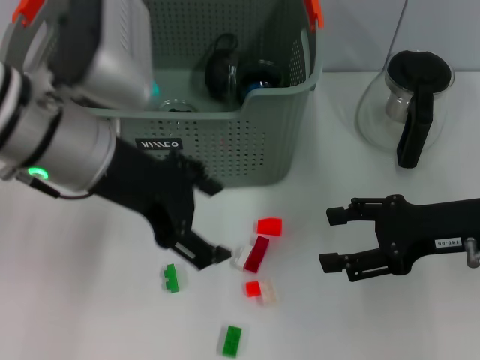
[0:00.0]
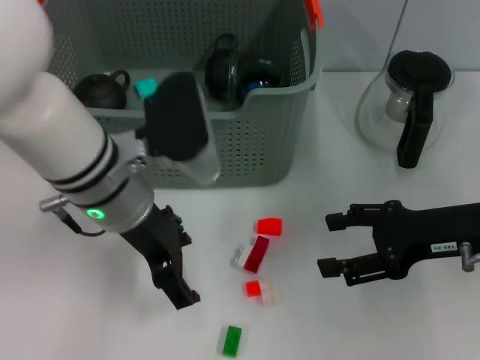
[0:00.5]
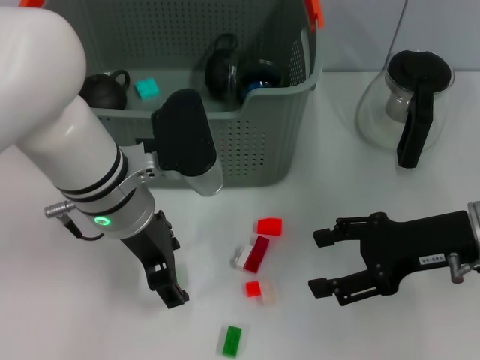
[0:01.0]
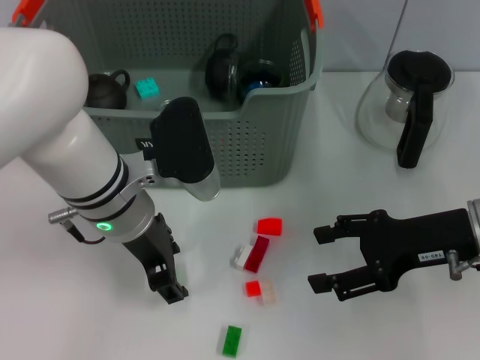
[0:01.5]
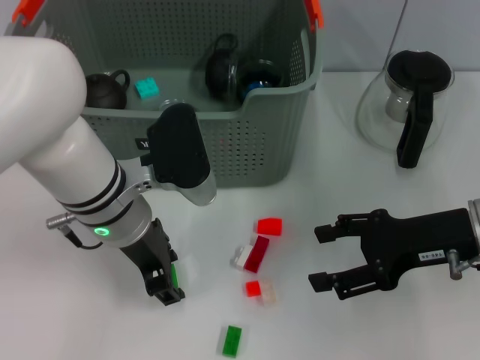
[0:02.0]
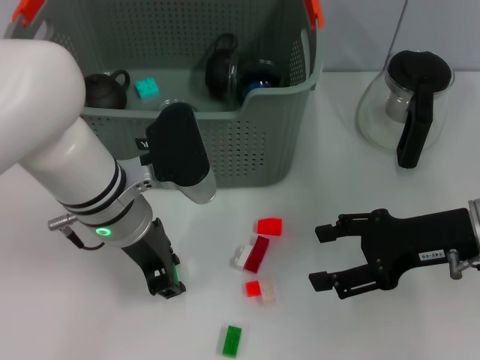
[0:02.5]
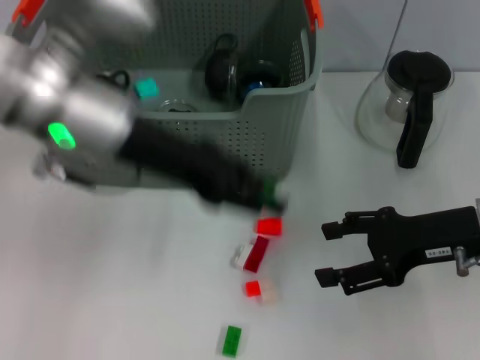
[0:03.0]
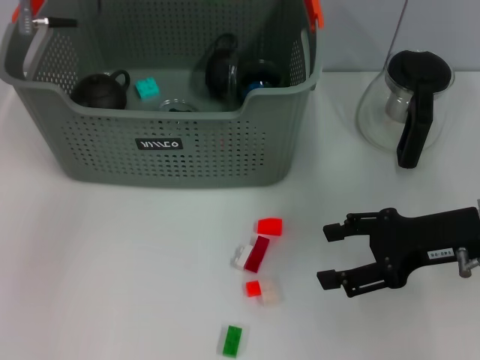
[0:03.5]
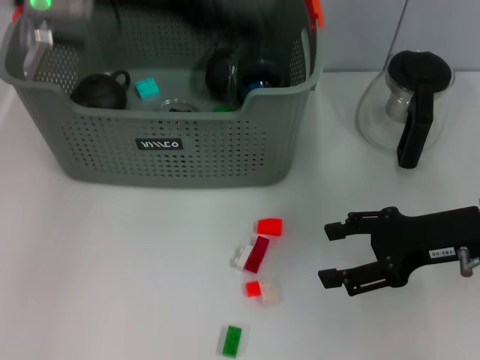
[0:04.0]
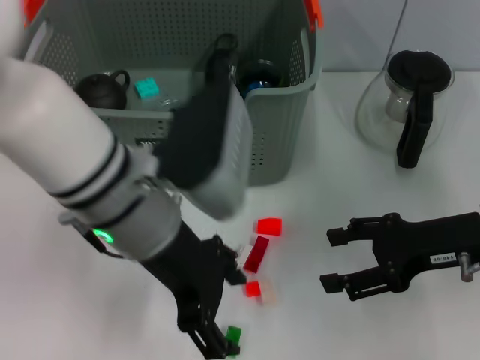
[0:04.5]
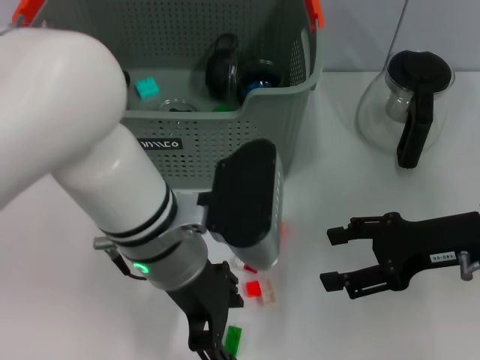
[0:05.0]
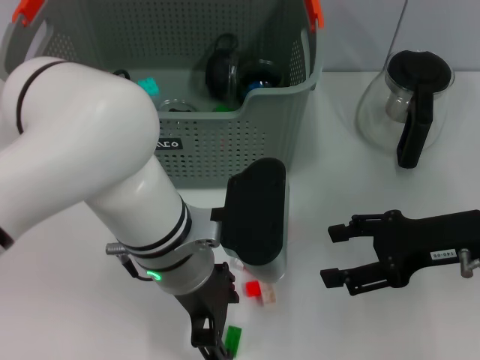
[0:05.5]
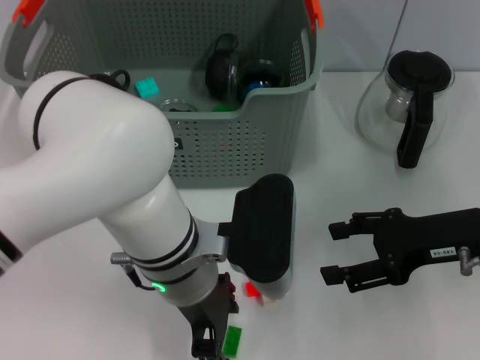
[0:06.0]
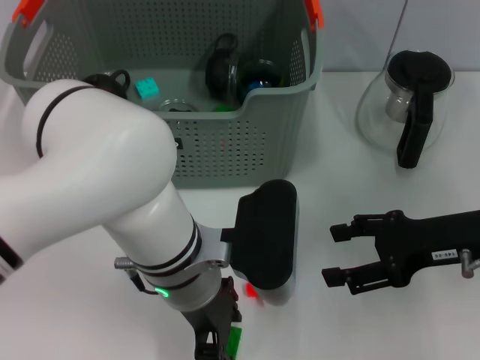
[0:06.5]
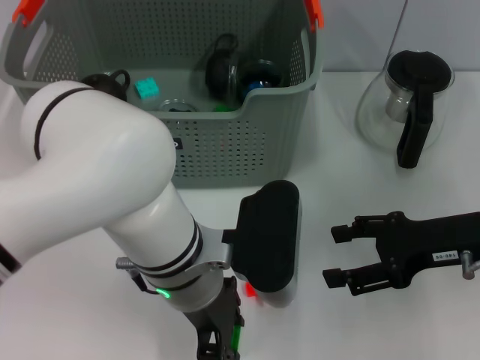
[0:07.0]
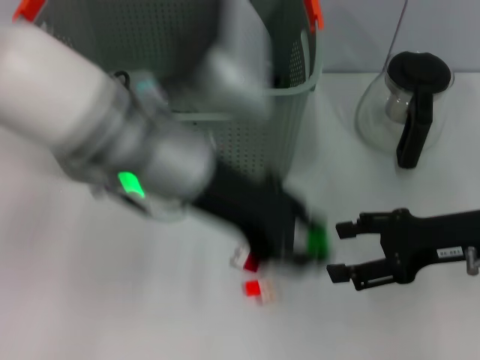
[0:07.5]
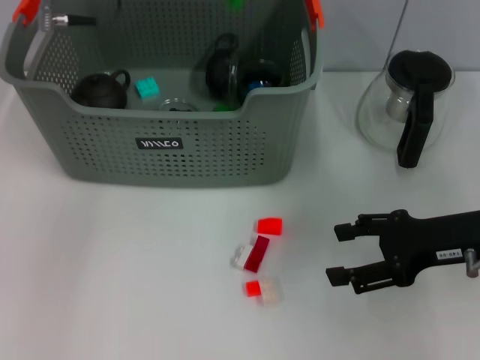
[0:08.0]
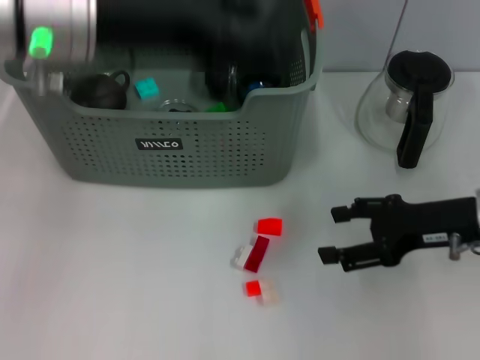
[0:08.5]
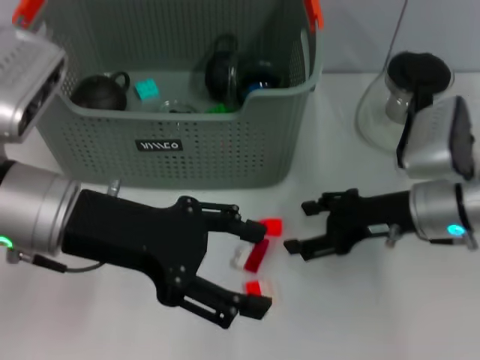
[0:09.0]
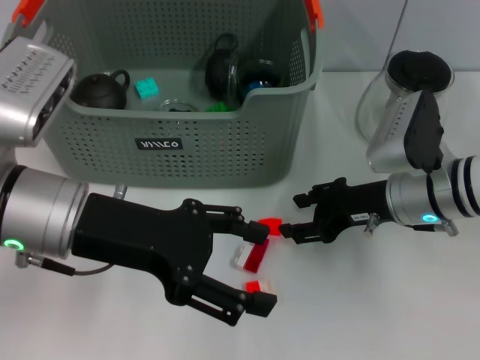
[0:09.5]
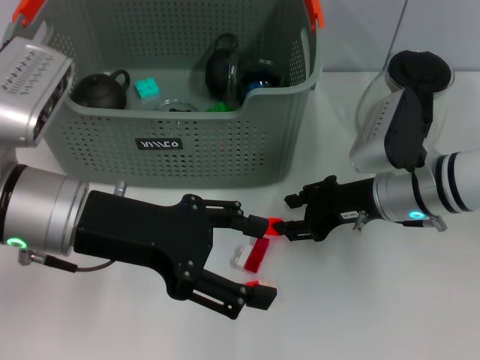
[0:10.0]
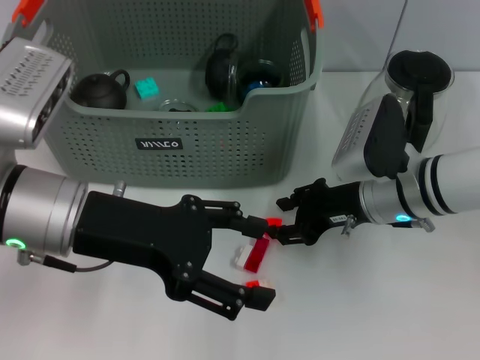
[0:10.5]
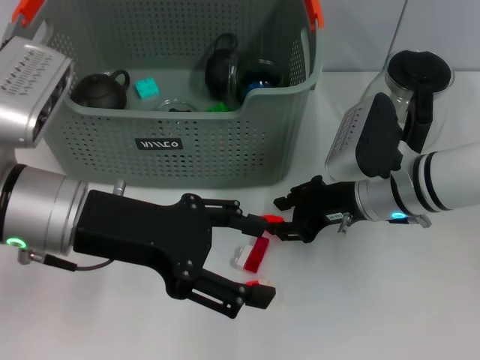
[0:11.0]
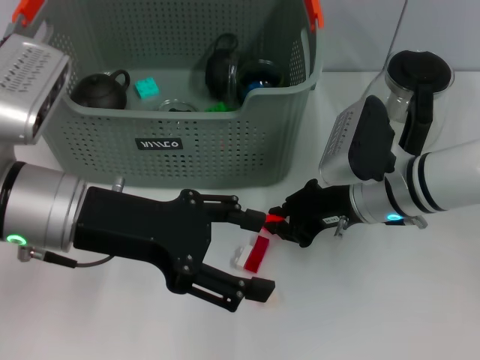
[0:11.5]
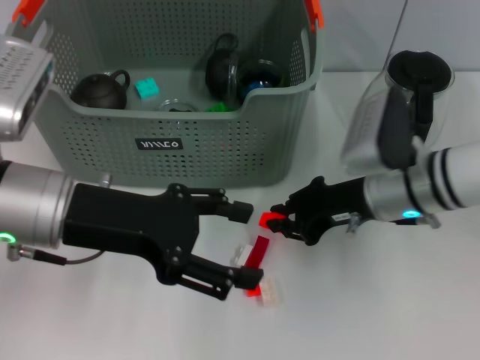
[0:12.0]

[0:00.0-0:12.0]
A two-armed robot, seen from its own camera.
Task of the whole recording: pick up the teacup on the table and place it into the storage bin, pick up the block on the table and place it into the storage bin.
Step, 0.0 to 2.0 s: Grasp the green block with left gripper.
Step, 2.5 to 3.5 s: Place the green block in the storage box with left gripper.
Step, 4.0 to 7.0 s: Grasp the green block with left gripper.
Step, 7.5 to 8.0 s: Place the green block in the storage box with left gripper.
Step, 8.5 to 11.5 s: Grasp the orange block with right gripper.
0.0 to 2.0 s: The left gripper is displaced downward by approximately 10 cm, and closes.
2.0 to 4.0 s: The left gripper goes about 15 cm upward.
4.0 to 6.0 s: The left gripper heads downward, to the right and backward, covering about 20 cm.
6.0 to 8.0 s: The left gripper shifts roughly 25 cm upward, forward and to the left, and closes.
8.0 to 10.0 s: The left gripper shifts roughly 15 cm backward and downward, and opens up; the right gripper shifts roughly 10 cm to the left and forward, and closes up.
10.0 to 12.0 s: The right gripper closes its fingers.

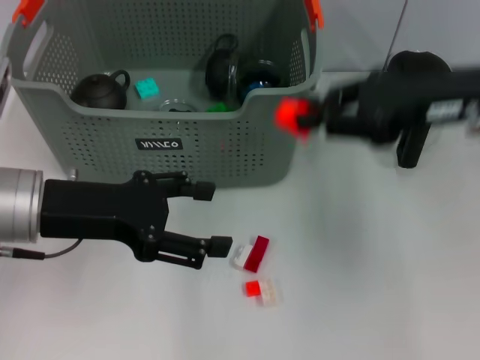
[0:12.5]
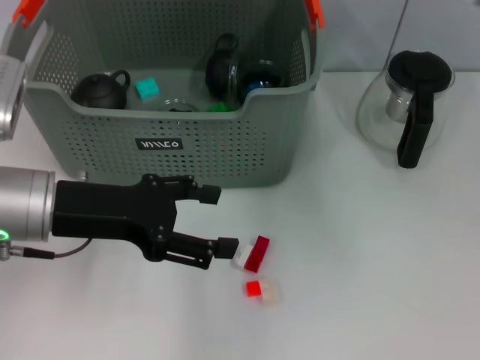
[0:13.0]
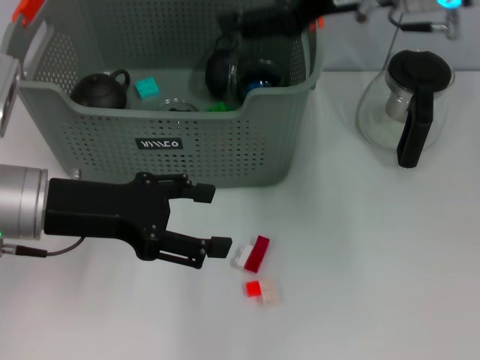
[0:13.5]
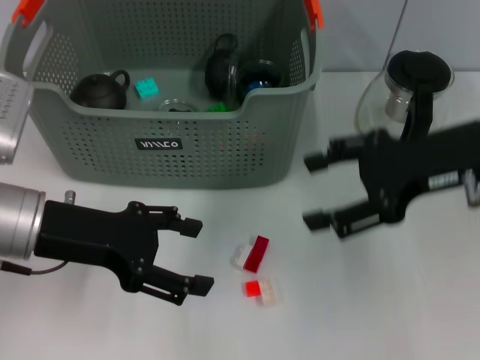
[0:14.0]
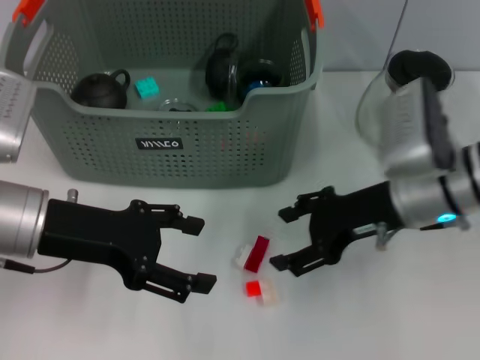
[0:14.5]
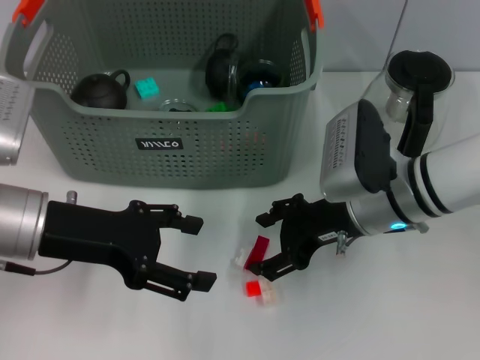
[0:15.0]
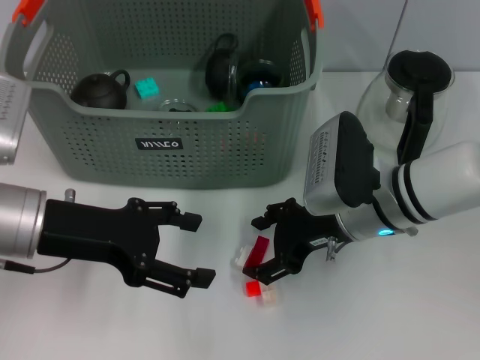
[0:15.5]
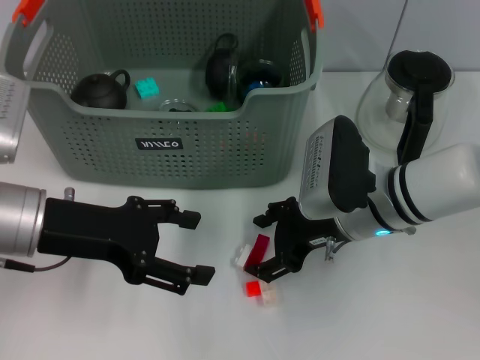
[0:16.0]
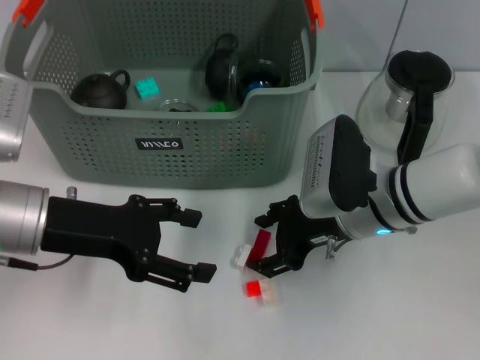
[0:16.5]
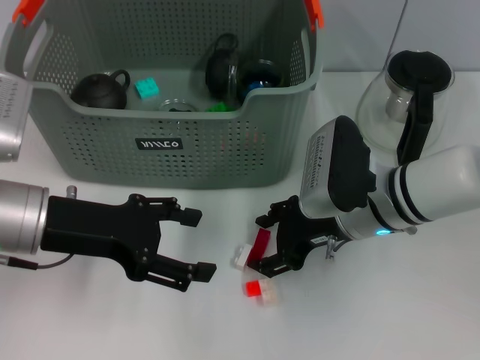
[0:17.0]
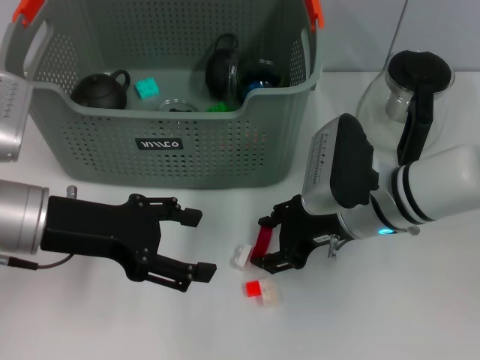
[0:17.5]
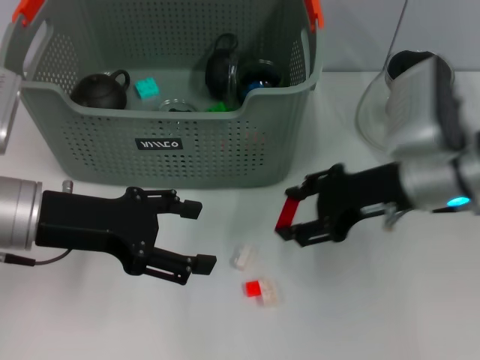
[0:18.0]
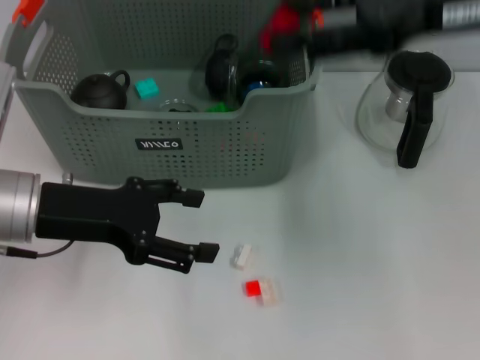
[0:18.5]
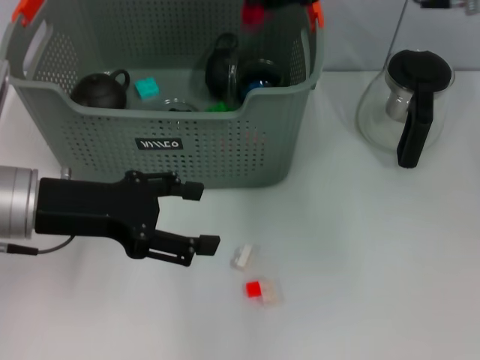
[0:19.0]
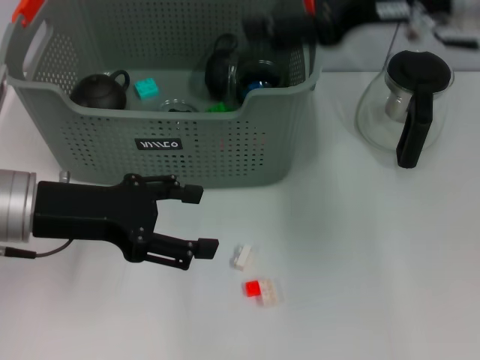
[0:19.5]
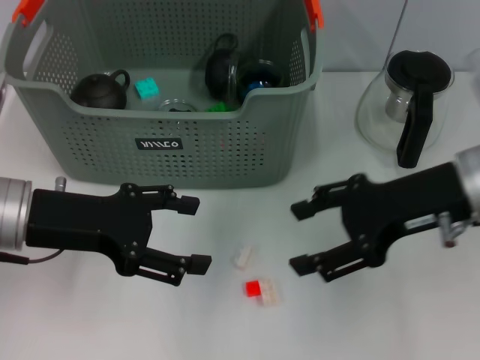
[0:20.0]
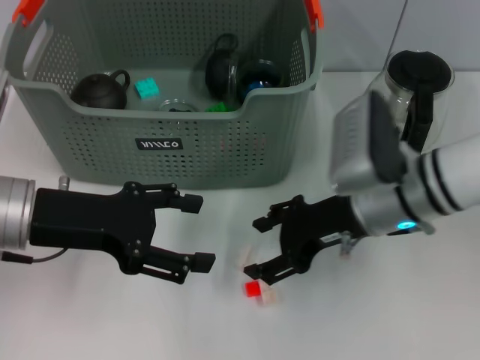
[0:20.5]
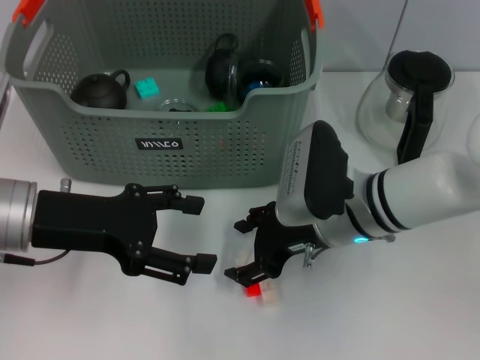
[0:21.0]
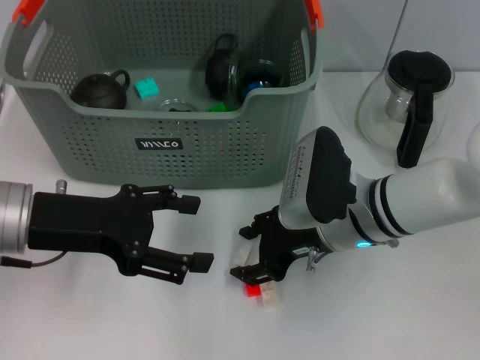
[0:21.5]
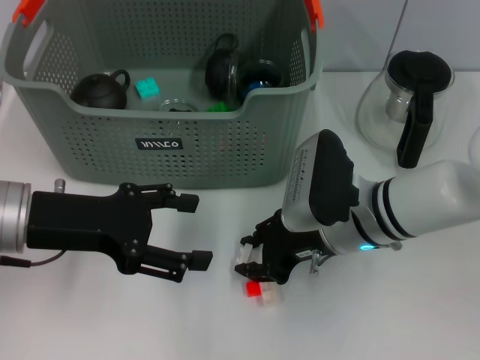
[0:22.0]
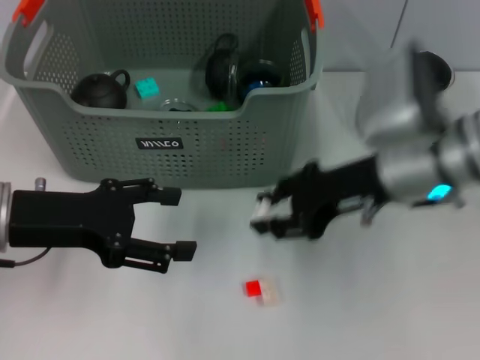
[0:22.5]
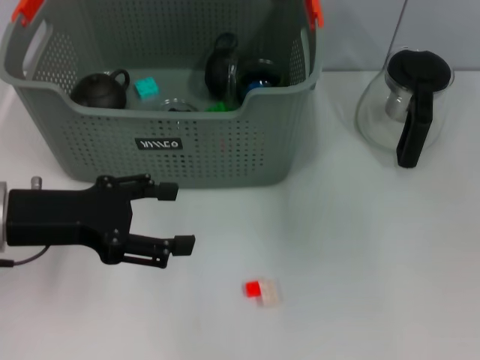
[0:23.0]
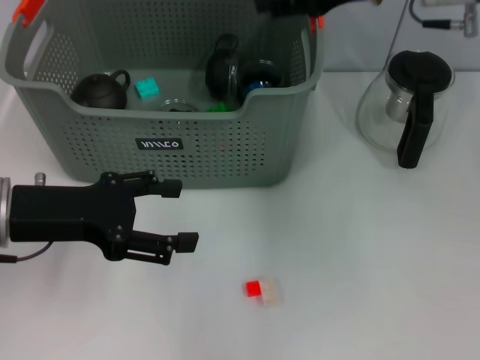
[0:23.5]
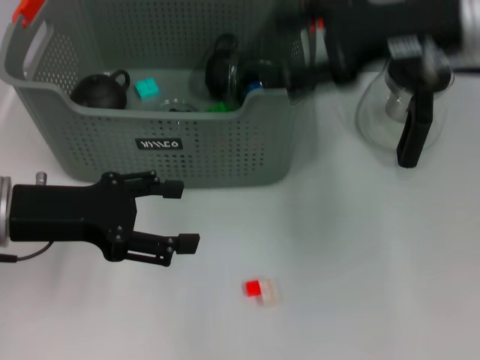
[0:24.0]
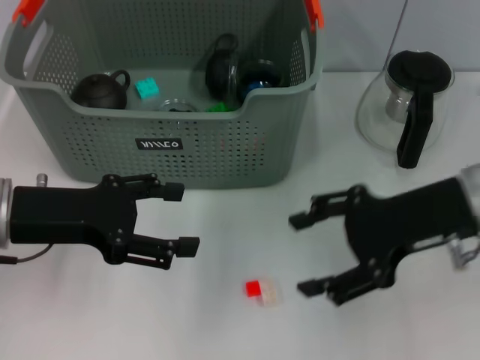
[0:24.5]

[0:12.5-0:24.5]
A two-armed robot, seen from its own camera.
Task of the whole recording: pick up the teacup on the table and place it into the storage bin, pick up the block on the table and place it into the storage bin.
Step, 13.5 to 17.0 s: Grasp the red block with right gripper.
Step, 17.5 to 19.0 s: Place the red block in the storage box with right gripper.
Step, 19.5 to 21.5 s: Grasp the white block with right gripper.
Step, 22.0 to 23.5 s: Place the white block in the storage box with right gripper.
12.5 to 14.5 s: The right gripper goes some 10 cm downward, and opens up.
14.5 to 16.5 s: The right gripper heads to the left, covering roughly 5 cm.
16.5 to 18.5 s: The right gripper is displaced upward by approximately 25 cm.
18.5 to 20.5 s: The right gripper travels downward by approximately 20 cm.
20.5 to 22.5 s: The right gripper shifts some 5 cm upward, and closes up.
22.5 to 24.5 s: The right gripper is displaced to the right by about 5 cm, moves about 15 cm upward and comes back, and opens up.

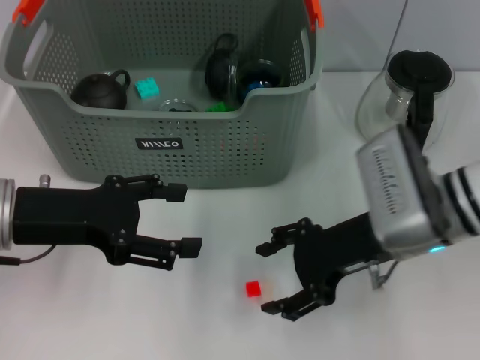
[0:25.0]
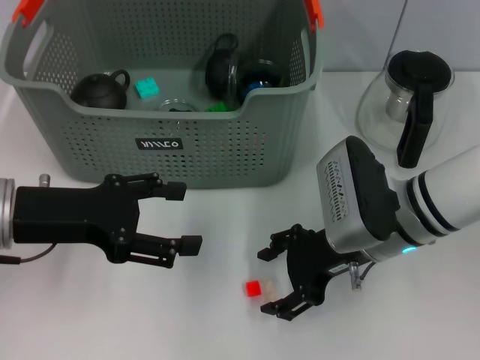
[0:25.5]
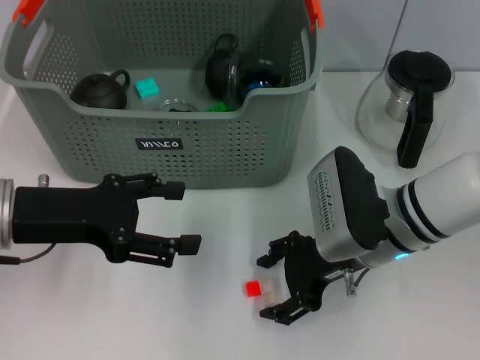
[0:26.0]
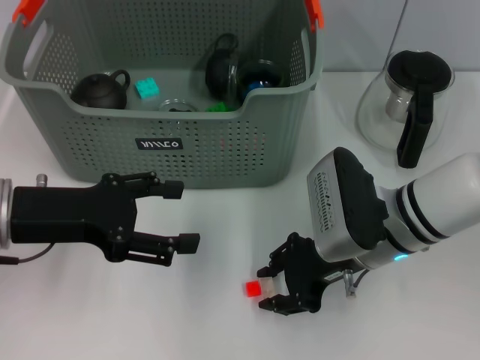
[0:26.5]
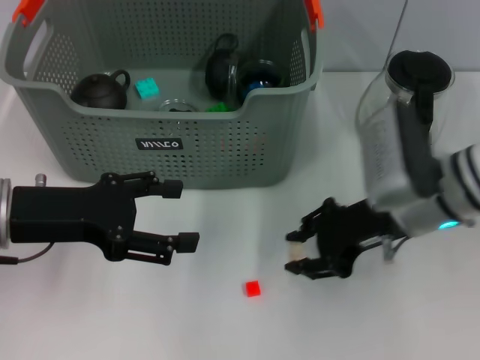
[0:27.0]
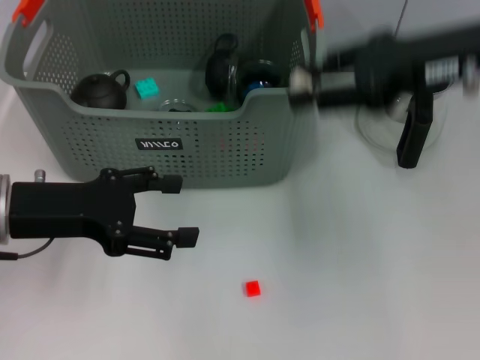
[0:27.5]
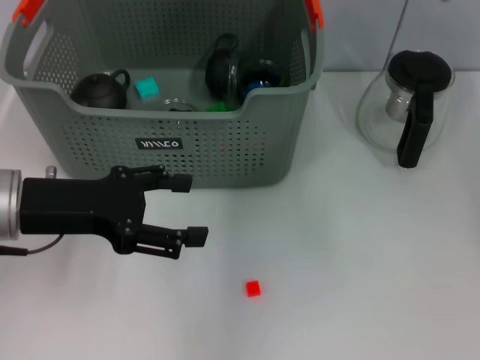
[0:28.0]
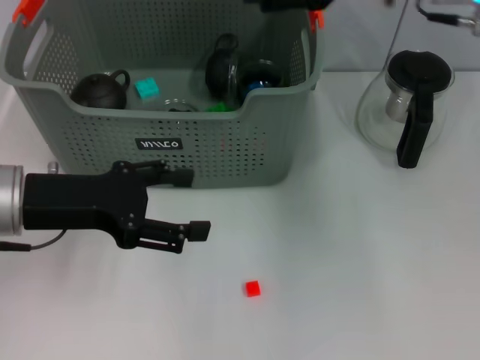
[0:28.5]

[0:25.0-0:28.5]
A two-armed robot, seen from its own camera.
Task of the whole recording: pick up the teacup on the table and place it into the storage bin, pick up the block on the table and place it into the storage bin.
Step, 25.0 to 26.5 s: Grasp the white block with right gripper.
Step, 27.0 to 28.0 s: Place the white block in the storage box with right gripper.
25.0 to 27.0 s: The right gripper closes up.
27.0 to 28.5 s: The right gripper heads upward, covering roughly 15 cm, and opens.
